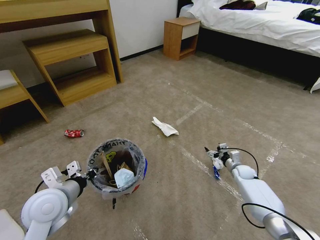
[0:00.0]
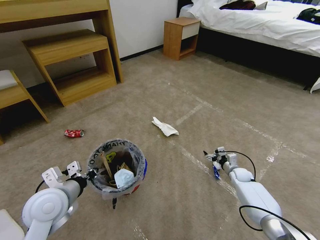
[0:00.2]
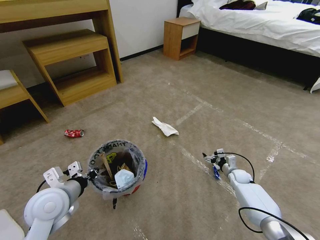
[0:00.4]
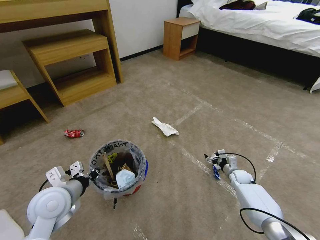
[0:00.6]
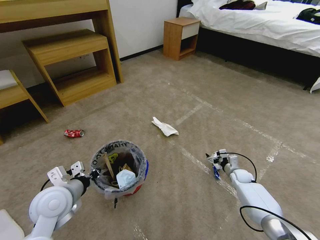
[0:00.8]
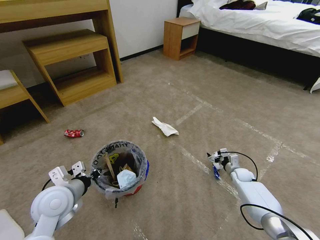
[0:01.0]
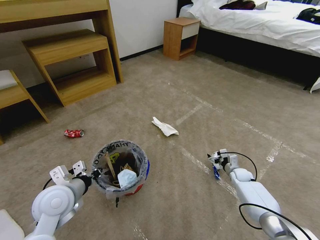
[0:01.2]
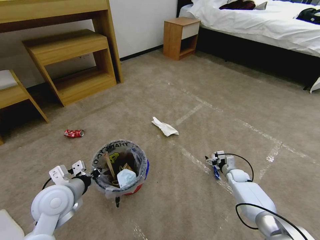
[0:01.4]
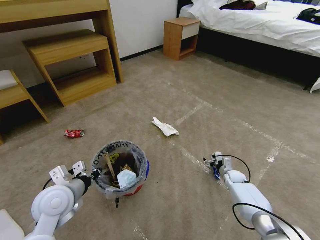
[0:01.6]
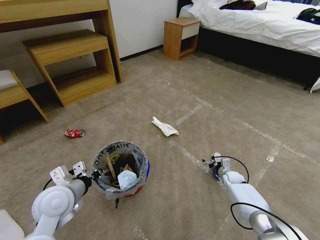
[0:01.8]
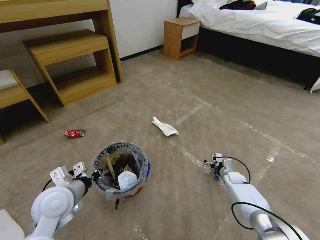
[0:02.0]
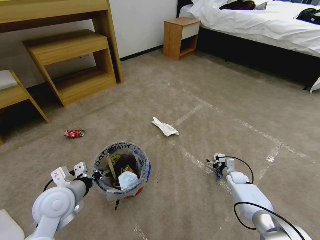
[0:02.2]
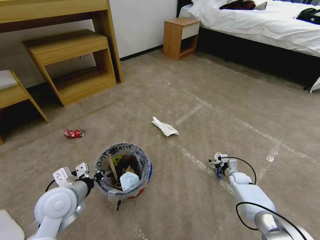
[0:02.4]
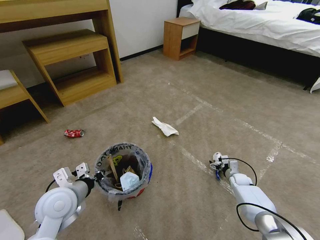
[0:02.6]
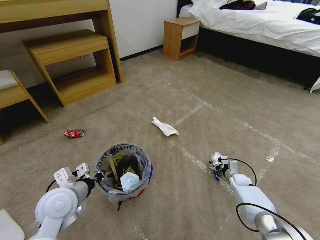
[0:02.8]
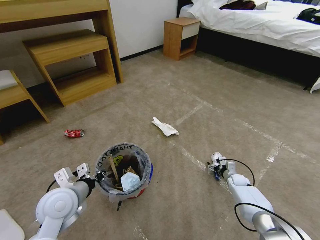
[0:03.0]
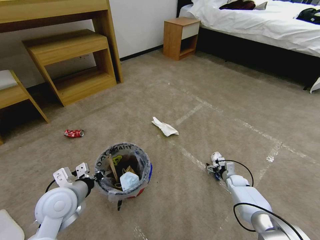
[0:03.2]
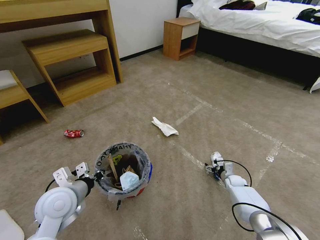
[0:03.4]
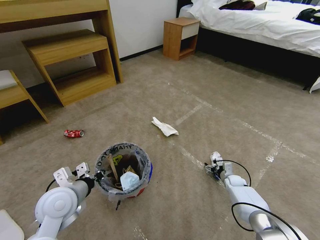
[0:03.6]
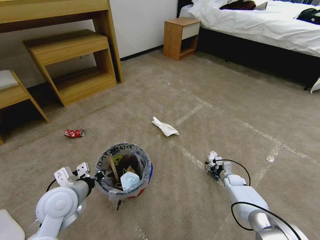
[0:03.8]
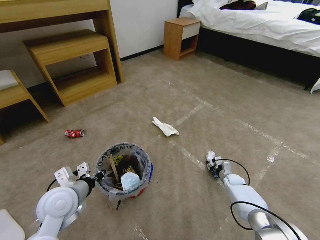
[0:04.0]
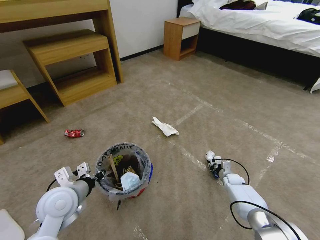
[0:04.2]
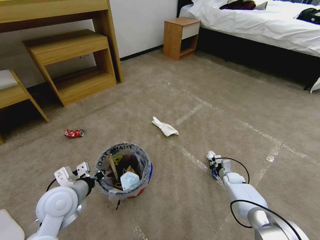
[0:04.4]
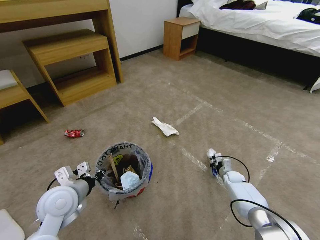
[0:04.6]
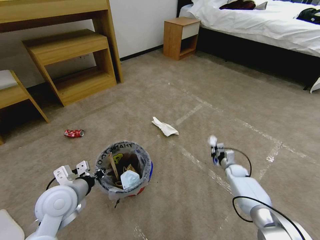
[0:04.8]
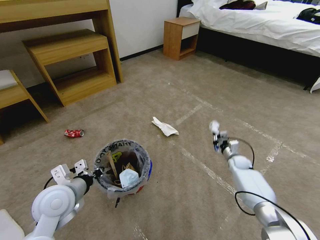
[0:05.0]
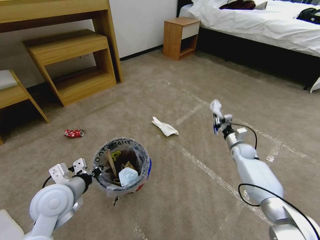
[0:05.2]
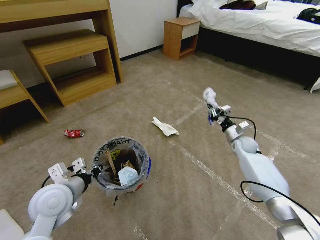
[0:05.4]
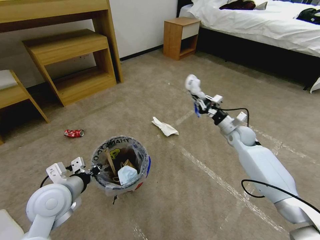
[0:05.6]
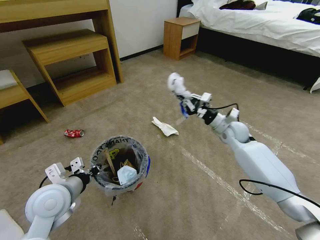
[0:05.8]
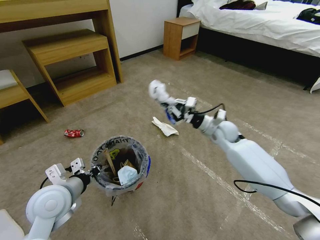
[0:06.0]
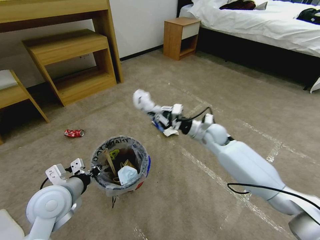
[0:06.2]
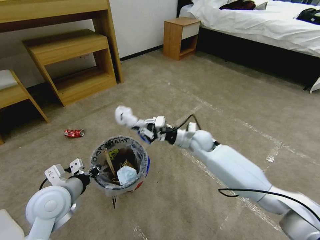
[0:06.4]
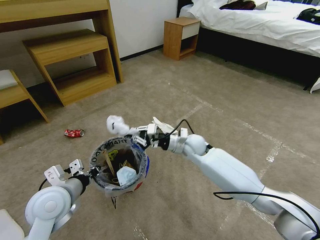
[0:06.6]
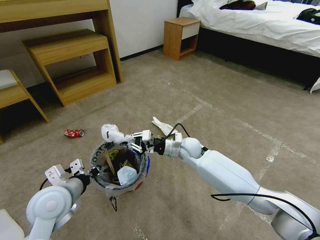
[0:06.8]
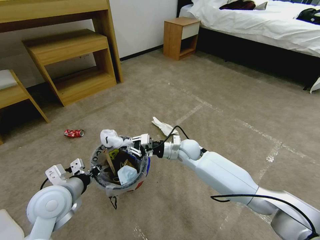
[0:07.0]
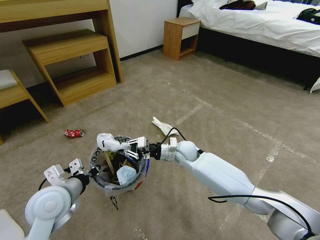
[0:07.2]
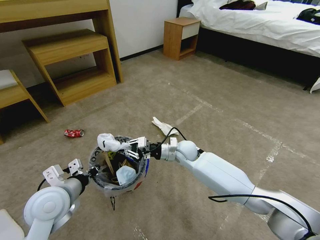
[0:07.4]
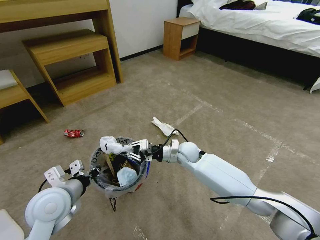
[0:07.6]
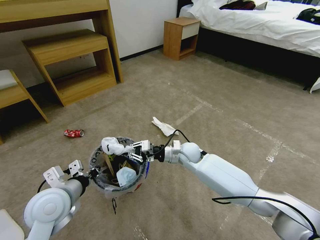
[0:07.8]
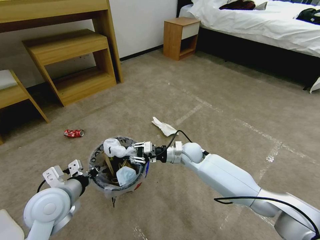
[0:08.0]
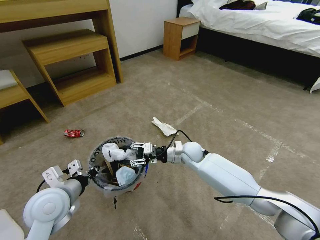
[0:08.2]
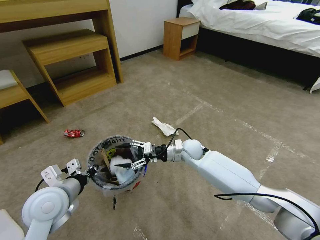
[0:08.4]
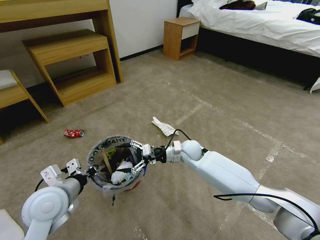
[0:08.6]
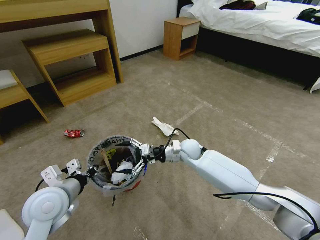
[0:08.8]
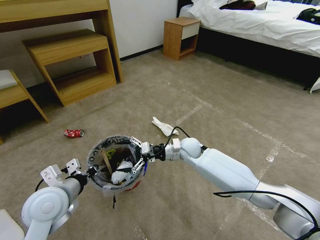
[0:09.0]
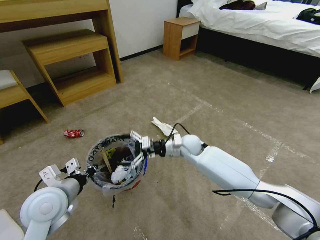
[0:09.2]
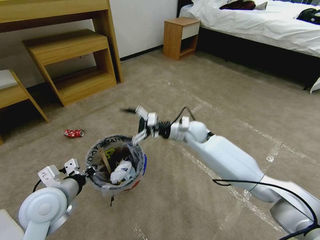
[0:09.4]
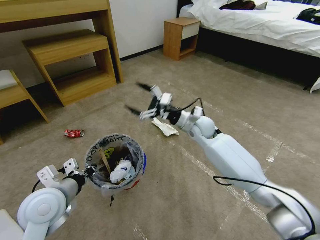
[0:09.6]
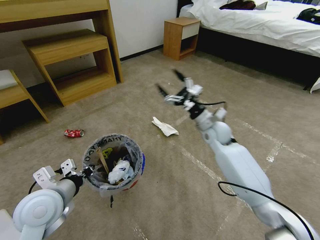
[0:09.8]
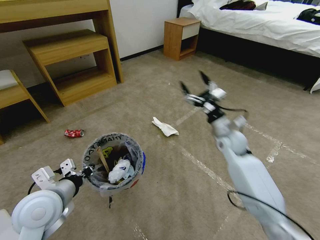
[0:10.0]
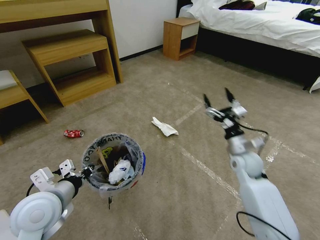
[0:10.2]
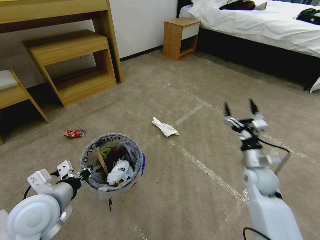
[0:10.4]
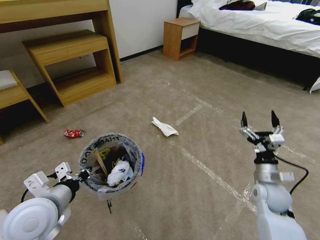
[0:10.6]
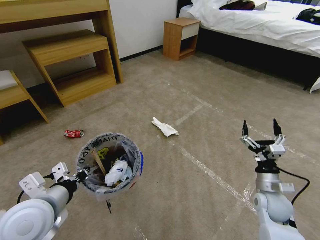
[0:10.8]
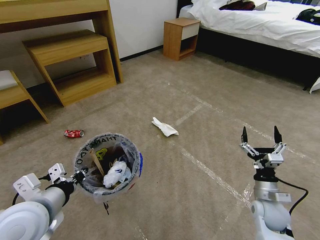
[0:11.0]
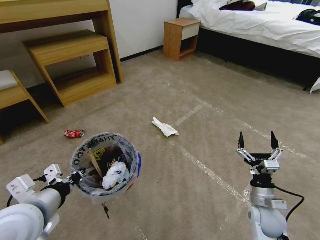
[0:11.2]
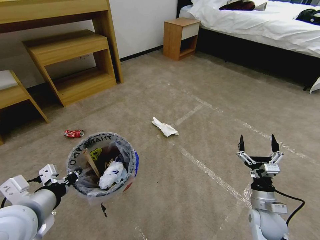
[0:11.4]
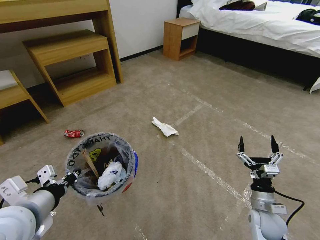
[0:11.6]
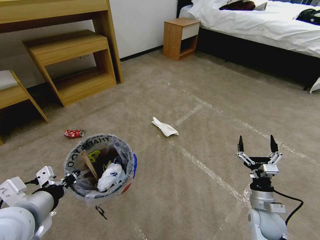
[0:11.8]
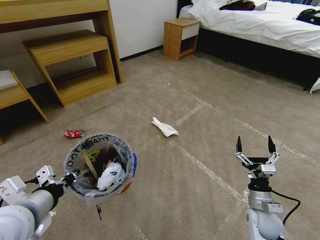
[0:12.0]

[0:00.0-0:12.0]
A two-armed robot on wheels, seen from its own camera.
Task of the whole recording: Pick up the trash bin and place the garbage on the floor into it.
0:00.0 to 0:01.6: The right gripper heads downward, covering roughly 5 cm.
0:01.6 to 0:03.0: The grippers stay close to where they were, moving slightly.
0:03.0 to 0:04.4: The right gripper closes.
0:04.4 to 0:06.0: The right gripper heads upward and to the left, covering roughly 35 cm.
0:06.0 to 0:07.6: The right gripper heads to the left and downward, covering about 15 cm.
0:07.6 to 0:09.0: The right gripper opens.
0:09.0 to 0:10.4: The right gripper shifts some 25 cm to the right and backward.
0:10.4 to 0:12.0: The left gripper ends up about 5 cm from where it was. The right gripper moves backward and downward, roughly 15 cm.

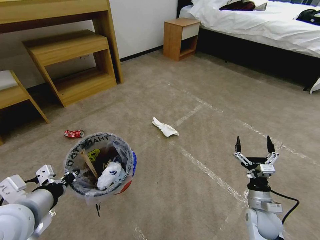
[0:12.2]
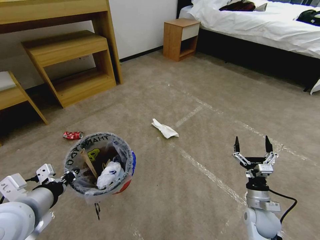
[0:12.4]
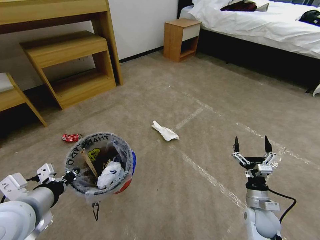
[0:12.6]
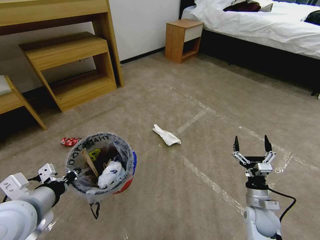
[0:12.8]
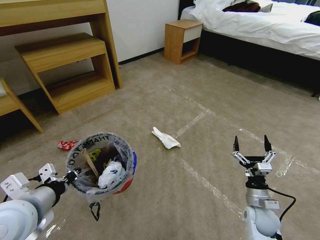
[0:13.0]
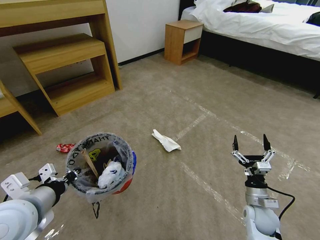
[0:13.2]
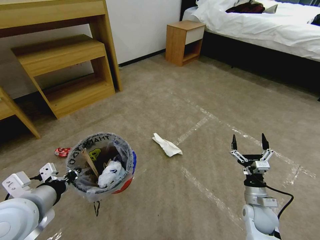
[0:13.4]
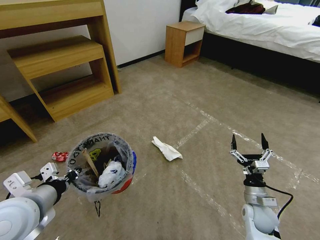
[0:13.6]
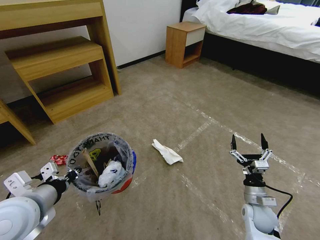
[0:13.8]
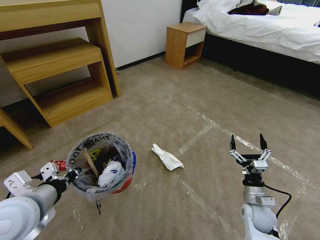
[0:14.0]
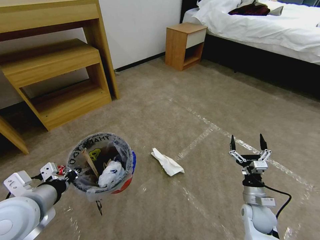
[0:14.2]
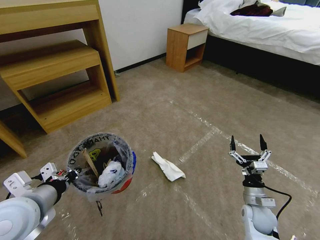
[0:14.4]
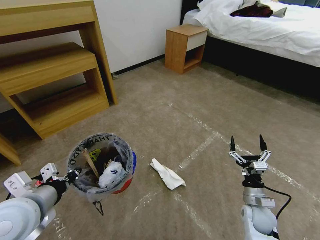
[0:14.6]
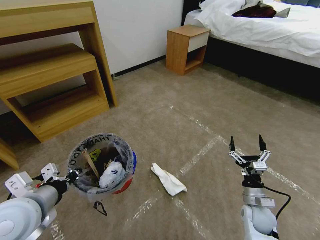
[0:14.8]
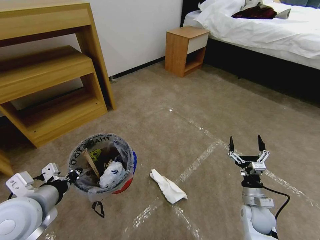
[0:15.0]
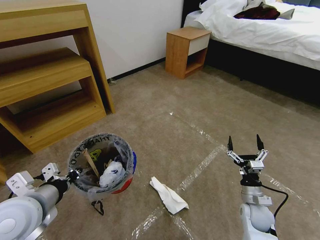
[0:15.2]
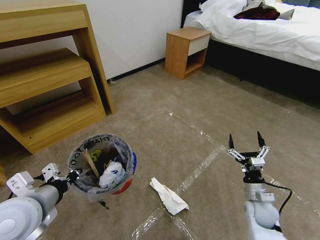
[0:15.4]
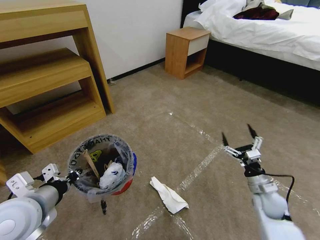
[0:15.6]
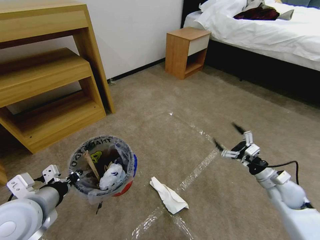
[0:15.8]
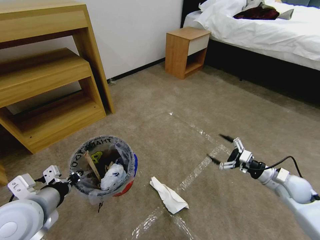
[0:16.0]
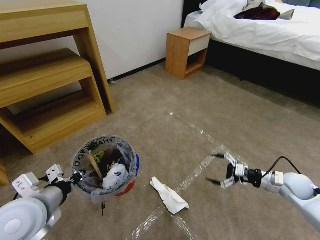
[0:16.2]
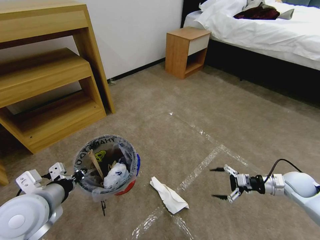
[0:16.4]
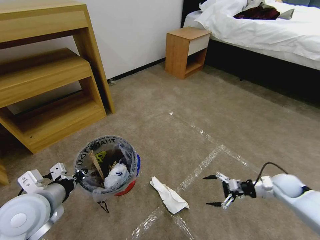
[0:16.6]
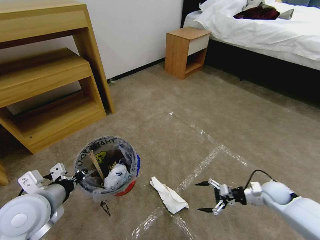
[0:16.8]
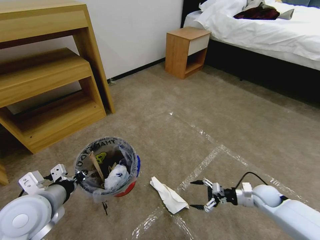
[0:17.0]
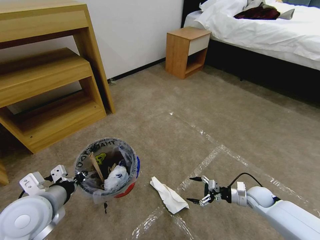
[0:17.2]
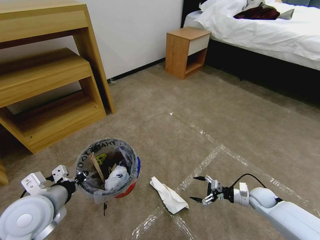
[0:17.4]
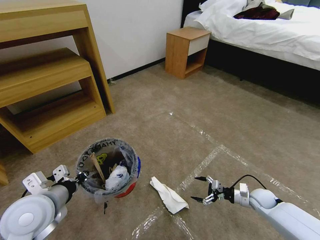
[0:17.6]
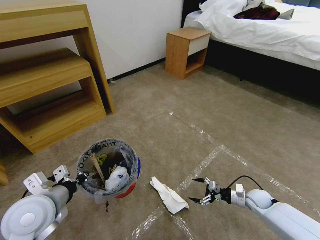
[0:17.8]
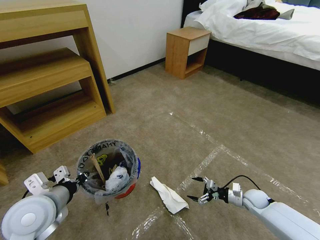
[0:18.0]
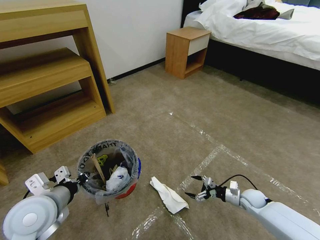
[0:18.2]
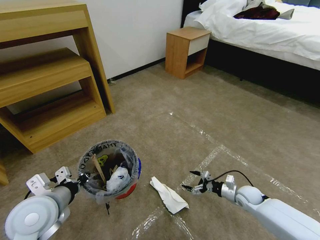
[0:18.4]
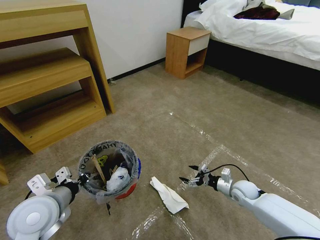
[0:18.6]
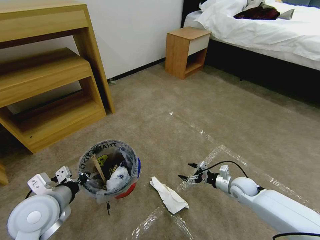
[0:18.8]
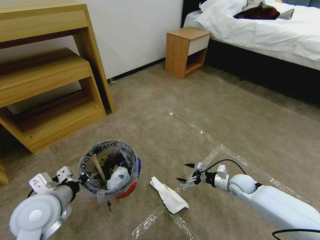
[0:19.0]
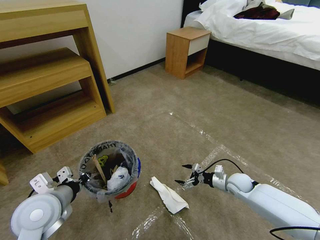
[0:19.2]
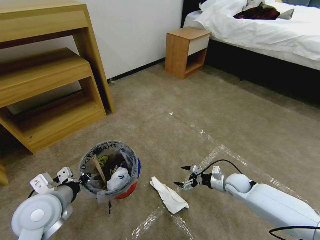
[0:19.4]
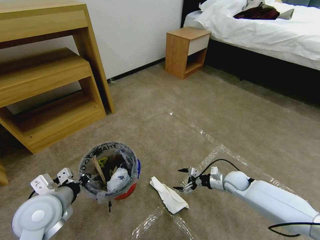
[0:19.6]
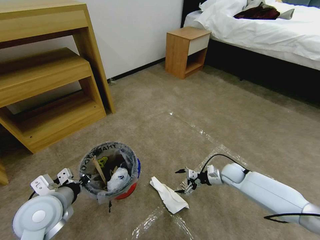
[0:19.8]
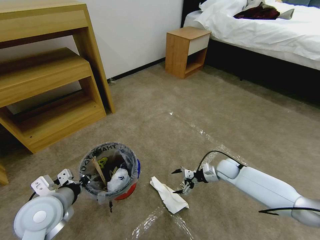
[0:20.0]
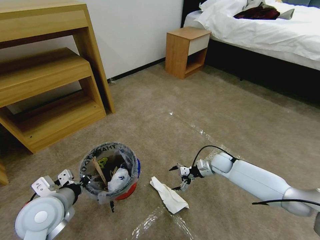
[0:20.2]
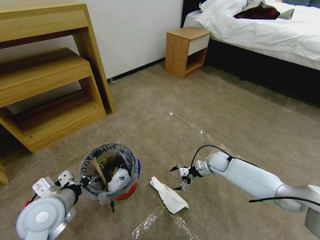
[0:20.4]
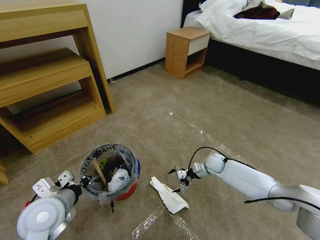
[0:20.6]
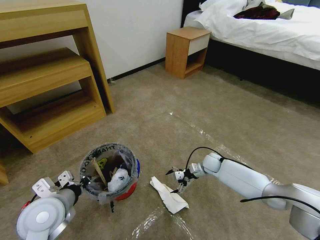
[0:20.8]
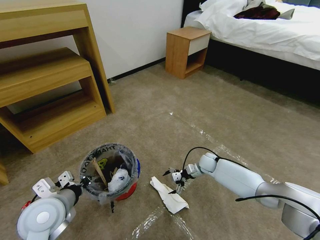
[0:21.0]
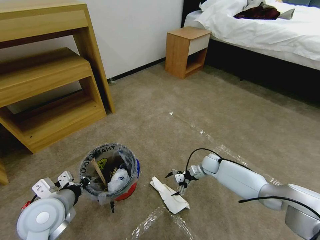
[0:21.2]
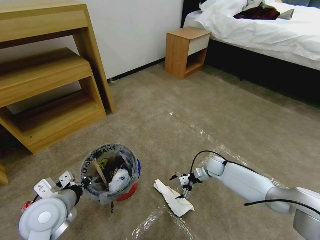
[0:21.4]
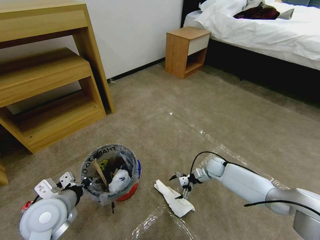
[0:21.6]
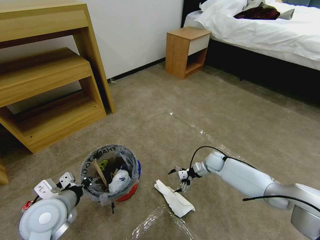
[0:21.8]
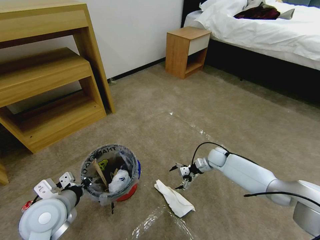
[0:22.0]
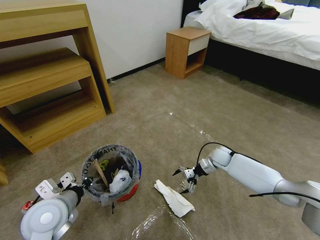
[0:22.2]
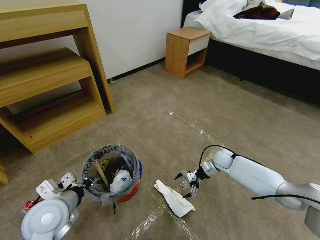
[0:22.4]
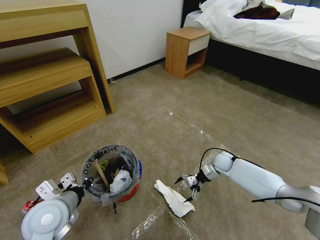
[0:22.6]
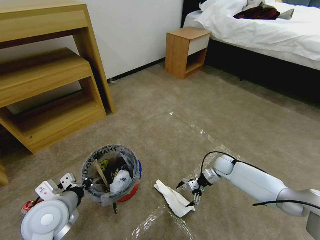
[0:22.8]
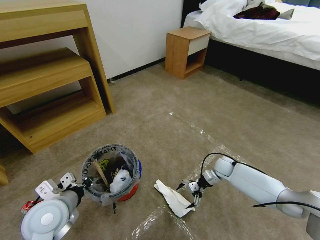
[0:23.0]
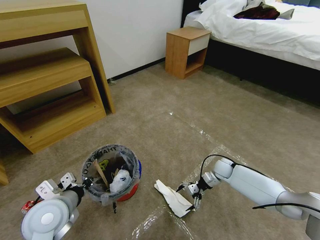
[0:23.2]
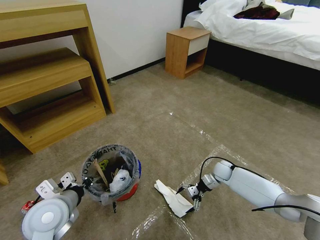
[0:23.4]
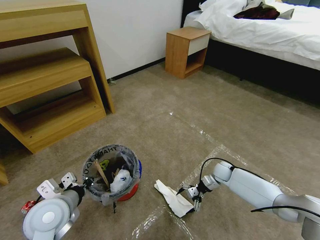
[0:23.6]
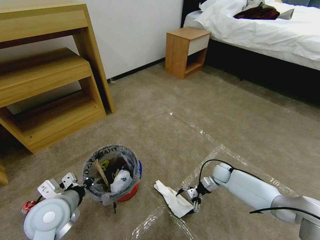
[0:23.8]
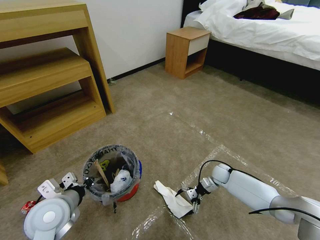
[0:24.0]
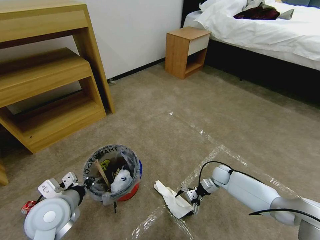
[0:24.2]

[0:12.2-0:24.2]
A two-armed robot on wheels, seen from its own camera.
Task of the whole recording: Pick up the trash bin and place the garbage on the floor into it.
0:15.2 to 0:16.6: The right gripper shifts roughly 15 cm to the right and forward.
0:16.6 to 0:18.2: The right gripper shifts about 15 cm downward and to the left.
0:18.2 to 0:19.8: The right gripper is displaced forward, to the left and upward by about 15 cm.
0:19.8 to 0:21.2: The right gripper shifts roughly 10 cm forward and to the left.
0:21.2 to 0:22.6: The right gripper ends up approximately 5 cm from where it was.
0:22.6 to 0:24.2: The right gripper moves downward, roughly 5 cm.
